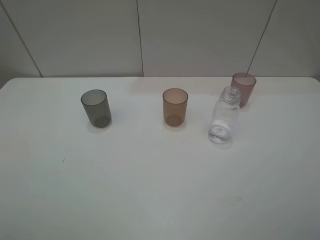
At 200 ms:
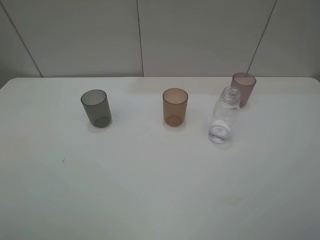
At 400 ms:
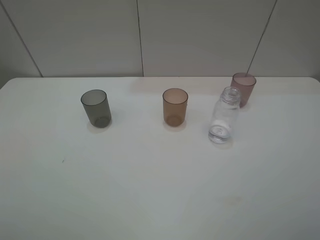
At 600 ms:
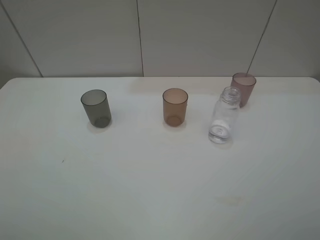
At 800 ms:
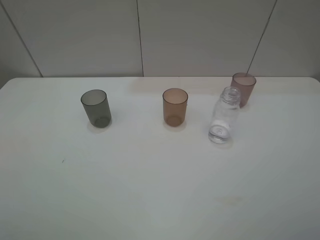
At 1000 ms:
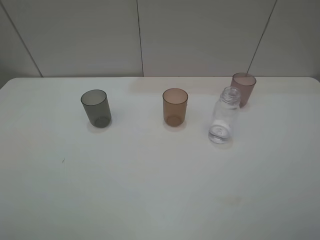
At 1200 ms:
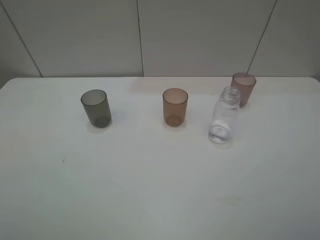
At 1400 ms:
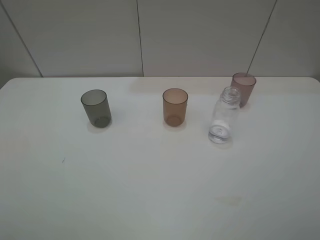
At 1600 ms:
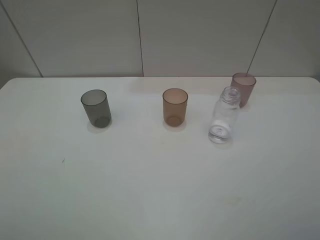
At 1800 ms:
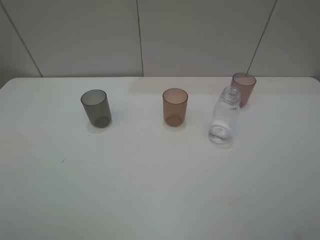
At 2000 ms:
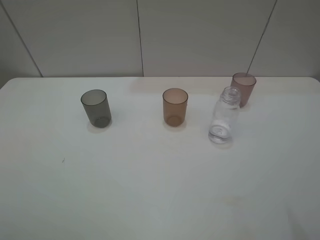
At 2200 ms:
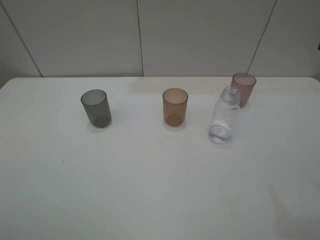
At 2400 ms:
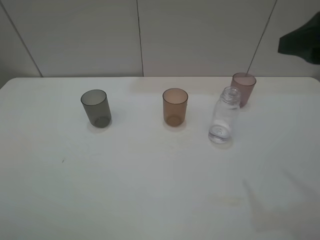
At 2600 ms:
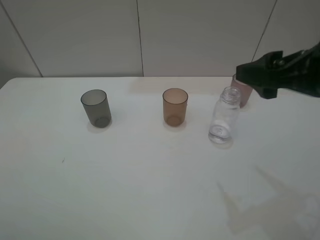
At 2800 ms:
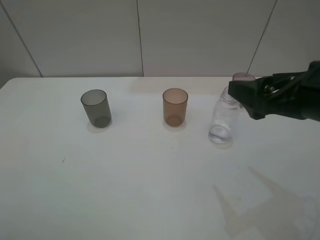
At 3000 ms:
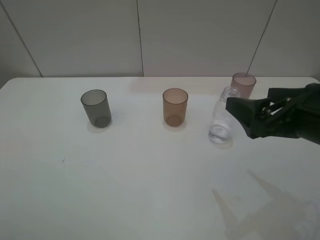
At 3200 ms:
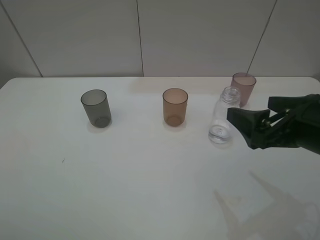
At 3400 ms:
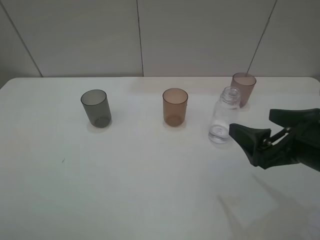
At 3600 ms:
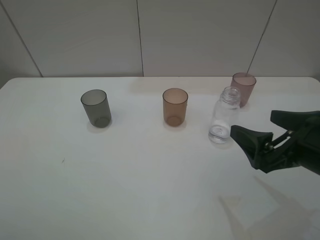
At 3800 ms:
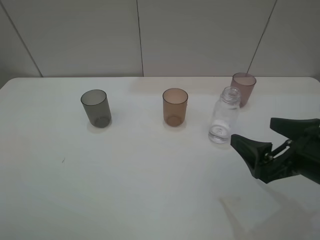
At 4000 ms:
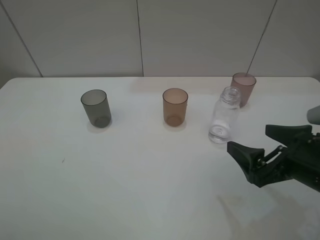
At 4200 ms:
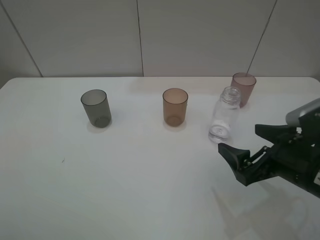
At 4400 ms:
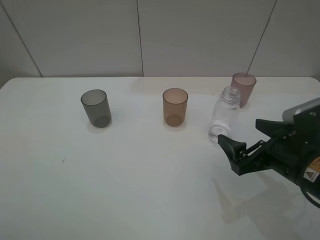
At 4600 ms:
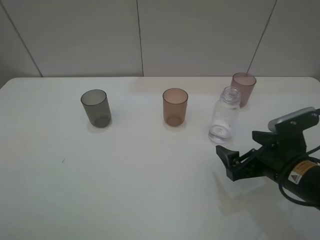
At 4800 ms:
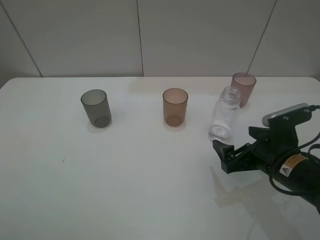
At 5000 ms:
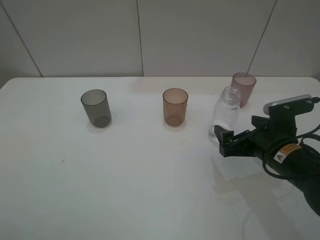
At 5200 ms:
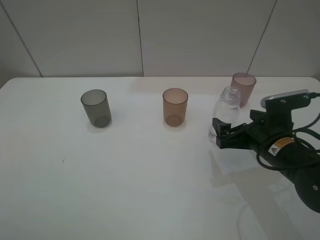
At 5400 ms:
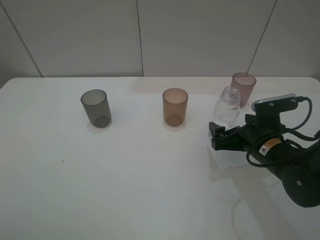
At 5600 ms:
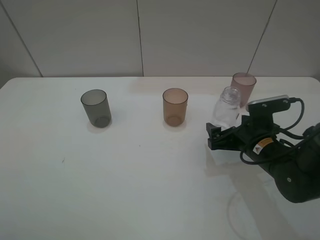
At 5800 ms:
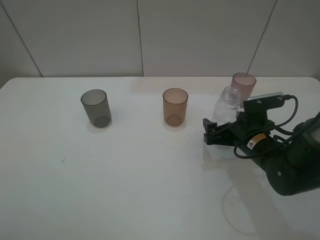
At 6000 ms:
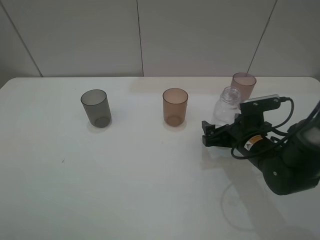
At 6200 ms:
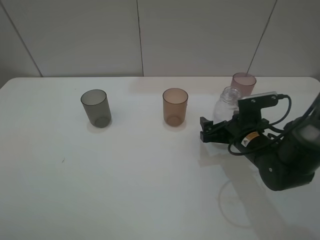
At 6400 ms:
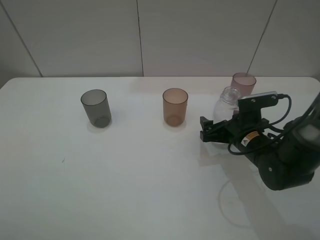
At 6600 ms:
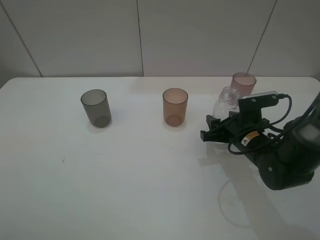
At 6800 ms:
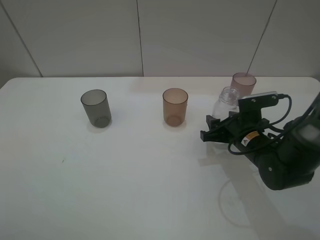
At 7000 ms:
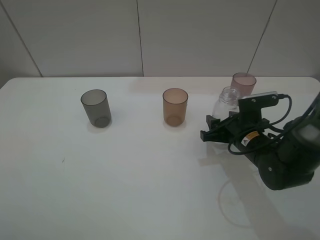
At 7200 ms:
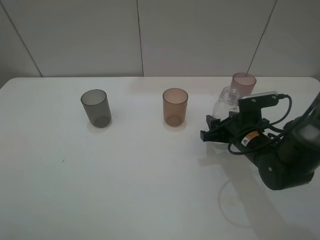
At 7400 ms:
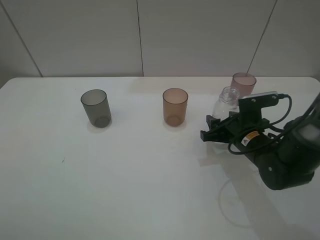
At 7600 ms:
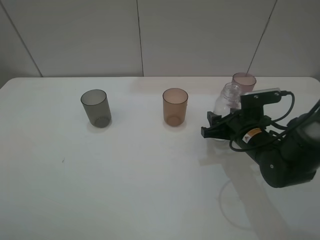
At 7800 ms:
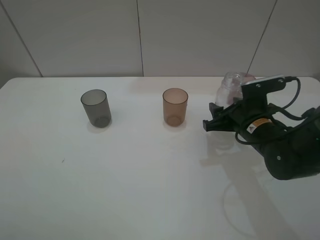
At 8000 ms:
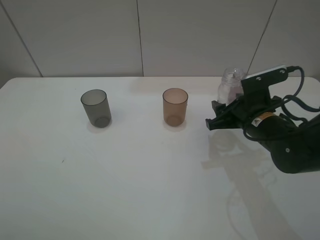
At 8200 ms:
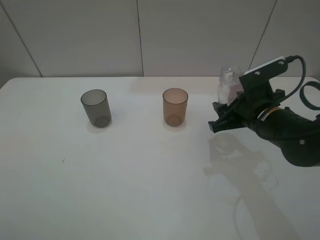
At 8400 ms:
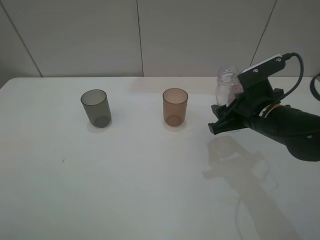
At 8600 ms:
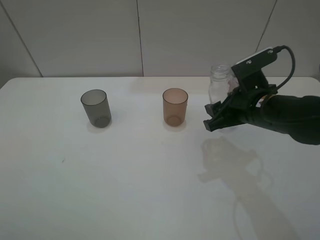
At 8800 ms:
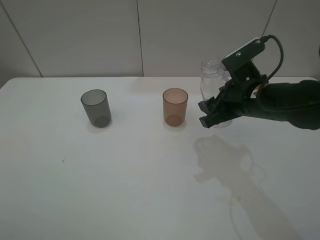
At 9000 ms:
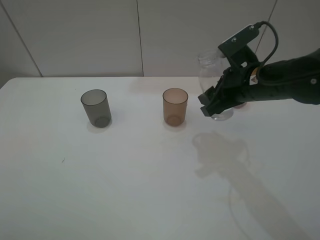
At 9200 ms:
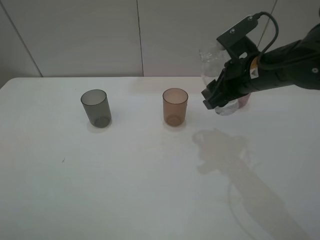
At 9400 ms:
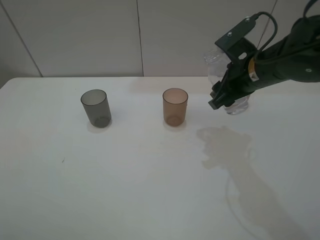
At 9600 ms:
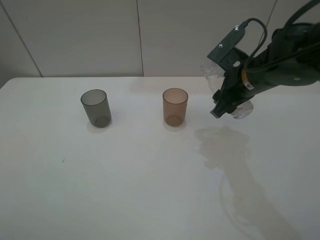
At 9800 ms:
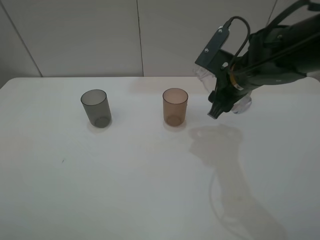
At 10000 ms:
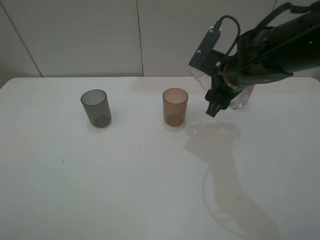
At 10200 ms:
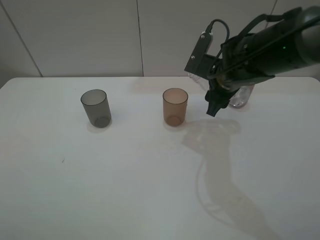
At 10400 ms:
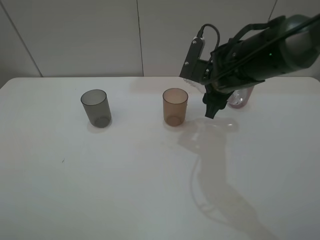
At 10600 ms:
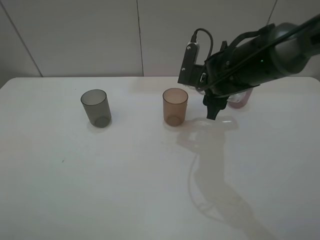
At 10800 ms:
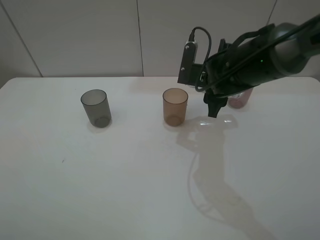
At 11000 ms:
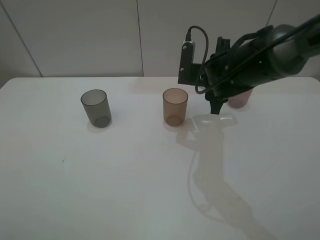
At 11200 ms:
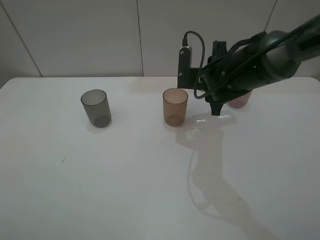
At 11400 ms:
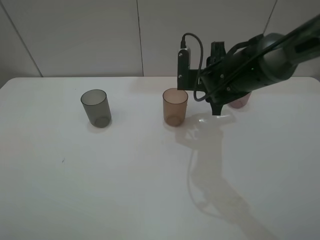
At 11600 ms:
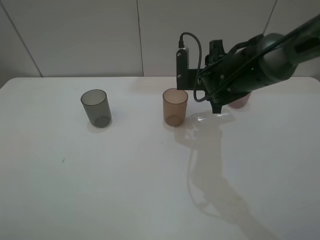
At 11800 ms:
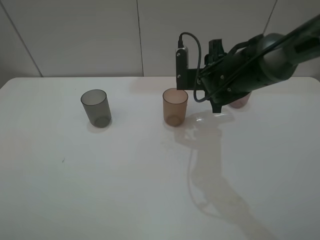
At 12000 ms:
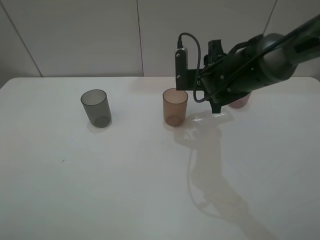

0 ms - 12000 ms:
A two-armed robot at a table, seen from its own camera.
Task of the whole recording: pick up the bottle filled with water and pour water into the middle cup of the three cups.
Step, 0 ms - 6800 ms: Grasp the transparent bottle with the right gripper.
1600 ms - 3000 ms: The right gripper goes roughly 15 cm forward, to the left and downward.
3000 ms - 4400 ms: The right gripper moves downward, about 10 cm.
4400 ms - 6000 ms: The right gripper heads forward and downward, covering approximately 10 cm.
6000 ms - 7600 ms: The right gripper closes up.
7600 ms - 9000 ms: The right gripper heads upward, covering some 10 cm.
9000 ms - 10400 ms: The right gripper moves roughly 5 cm.

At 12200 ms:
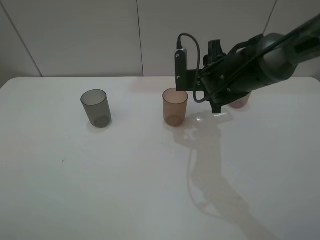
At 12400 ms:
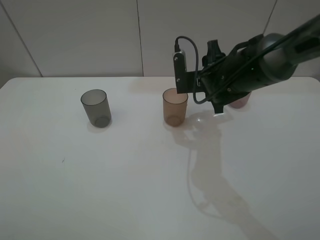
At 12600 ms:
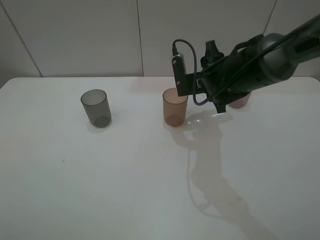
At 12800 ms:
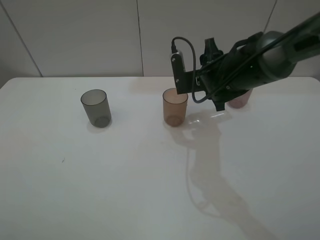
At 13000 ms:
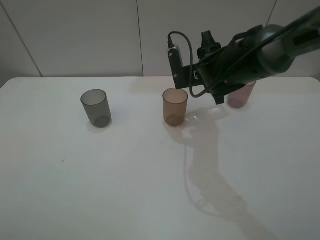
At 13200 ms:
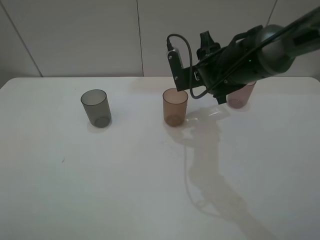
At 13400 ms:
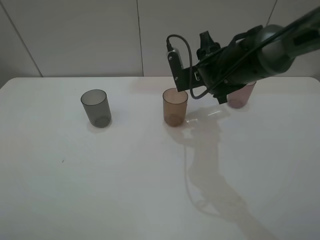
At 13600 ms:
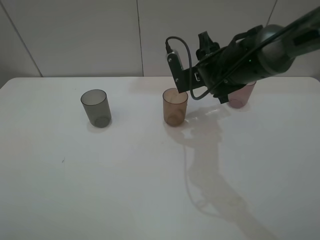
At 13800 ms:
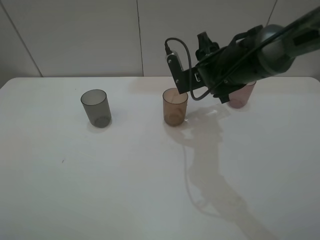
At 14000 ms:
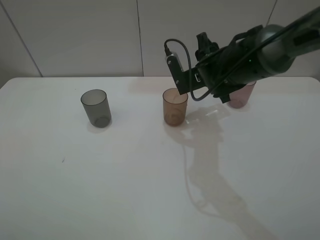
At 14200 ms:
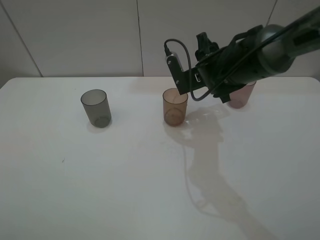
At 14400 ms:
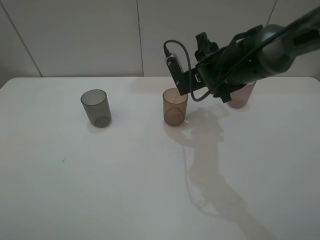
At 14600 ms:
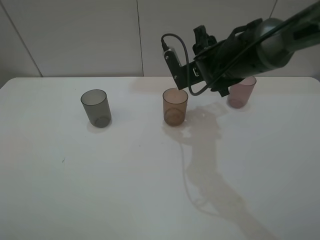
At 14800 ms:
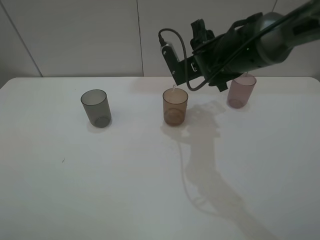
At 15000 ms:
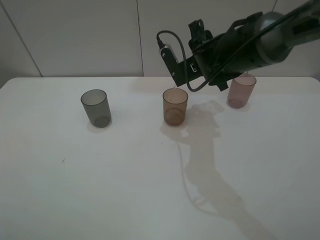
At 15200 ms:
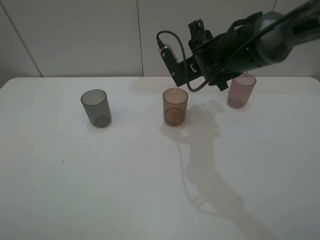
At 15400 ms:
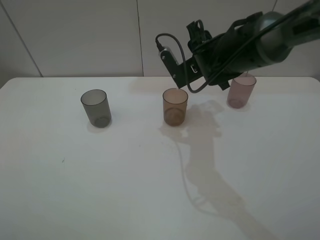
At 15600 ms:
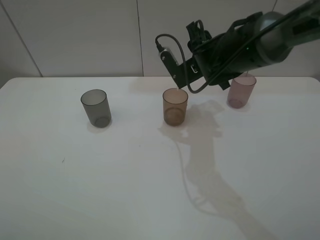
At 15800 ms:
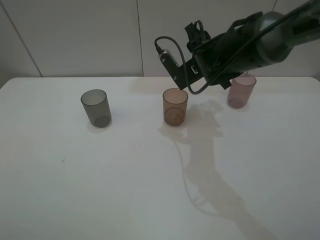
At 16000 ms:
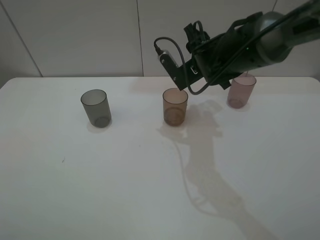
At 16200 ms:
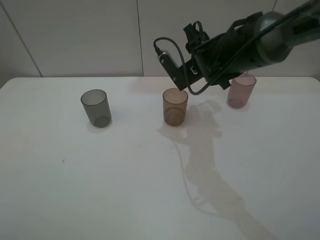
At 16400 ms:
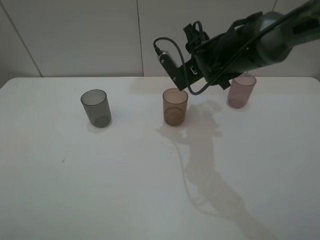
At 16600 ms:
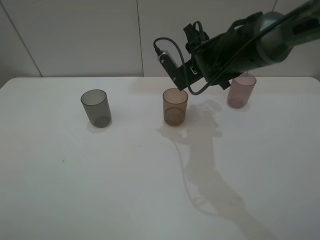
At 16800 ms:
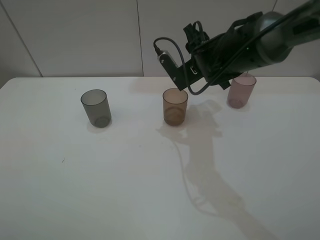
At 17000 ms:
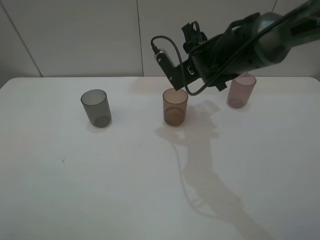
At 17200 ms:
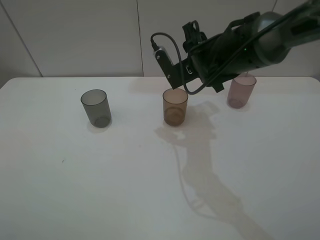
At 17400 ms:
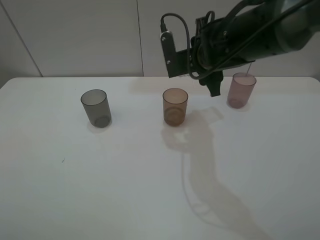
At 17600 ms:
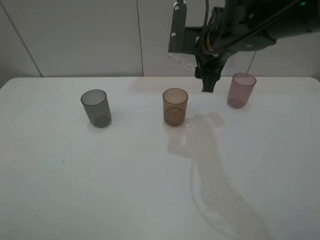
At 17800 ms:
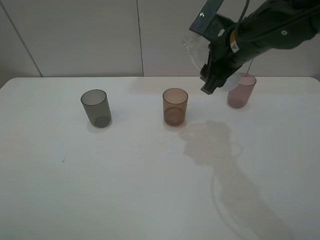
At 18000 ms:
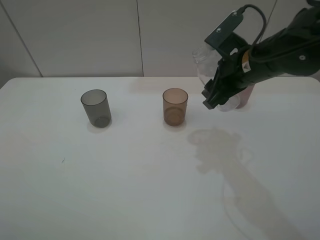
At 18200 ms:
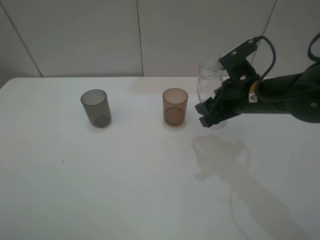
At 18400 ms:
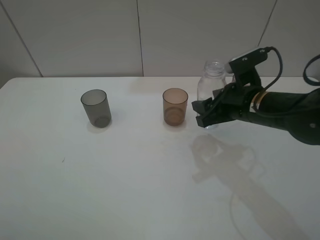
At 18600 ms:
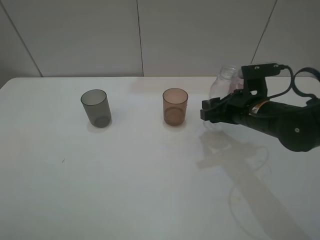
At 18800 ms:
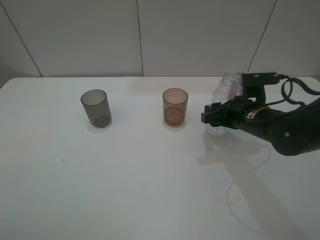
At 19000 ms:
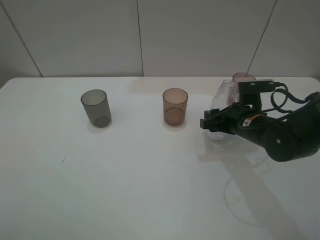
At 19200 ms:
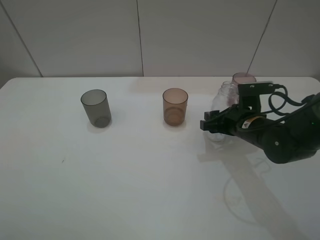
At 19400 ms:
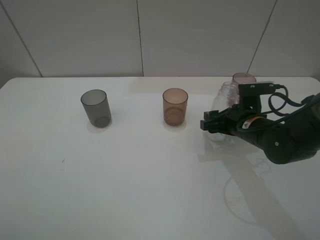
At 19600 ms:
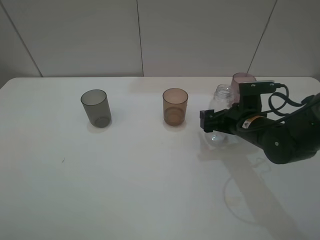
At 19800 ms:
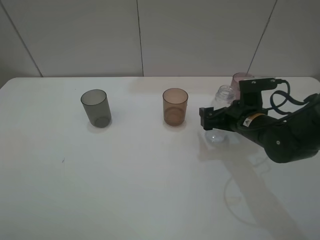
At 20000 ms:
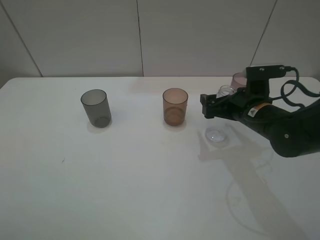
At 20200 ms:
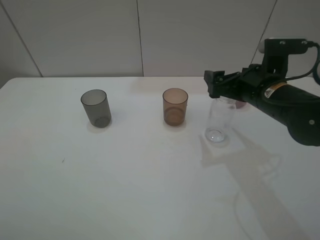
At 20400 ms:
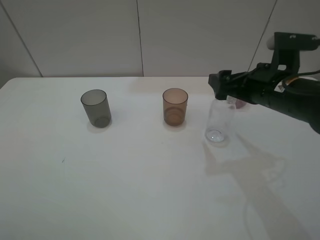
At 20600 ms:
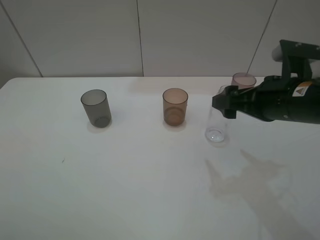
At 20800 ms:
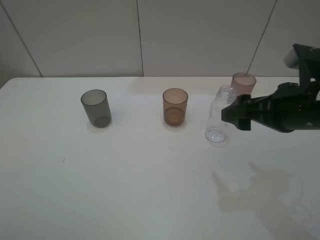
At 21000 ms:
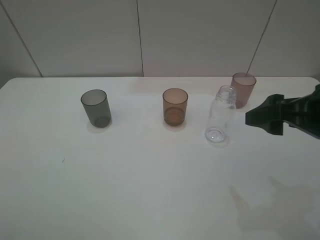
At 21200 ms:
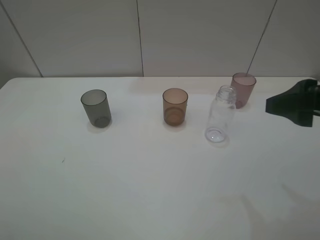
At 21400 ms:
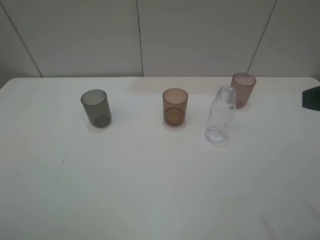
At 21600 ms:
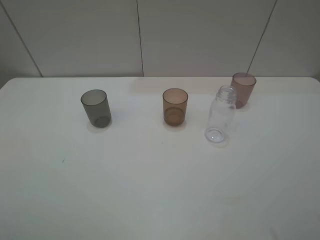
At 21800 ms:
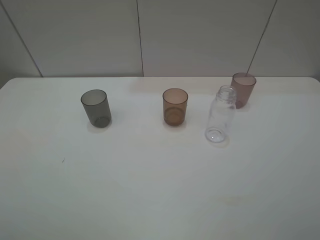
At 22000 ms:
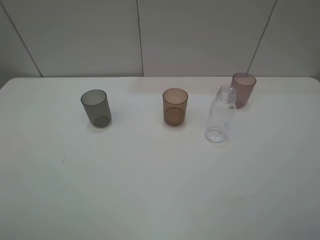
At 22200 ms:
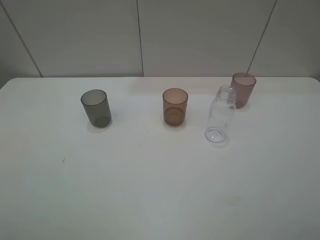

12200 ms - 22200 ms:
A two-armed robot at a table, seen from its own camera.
Task of the whole recording: pick up the bottle filled with water and pour water into the middle cup of the three cups.
Step, 12200 ms - 17600 ms: Pour water from transparent bottle tobrown cup with the right gripper.
Step, 17800 ms - 21200 ms: Place the transparent bottle with the right gripper.
12200 ms - 13600 ms: The grippers make only small movements.
13600 ms - 16400 ms: The grippers make only small movements.
16400 ms - 18000 ms: The right gripper heads backward and to the right, covering some 10 cm.
18000 ms - 19400 ms: The right gripper is displaced downward by about 10 cm, and opens.
19400 ms - 20800 ms: The right gripper moves upward and backward, about 15 cm, and opens up.
20800 ms - 22200 ms: The right gripper moves backward, upward and to the right, some 20 cm.
